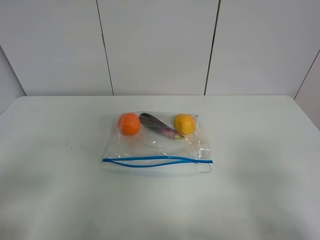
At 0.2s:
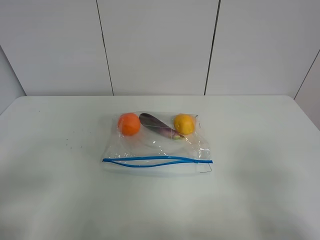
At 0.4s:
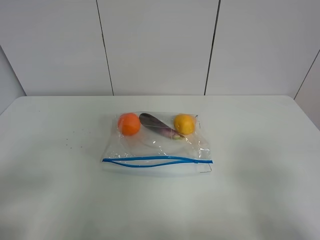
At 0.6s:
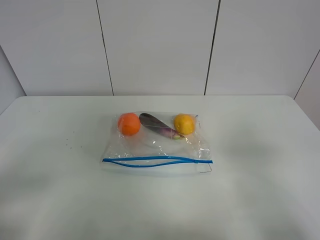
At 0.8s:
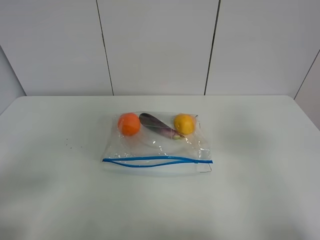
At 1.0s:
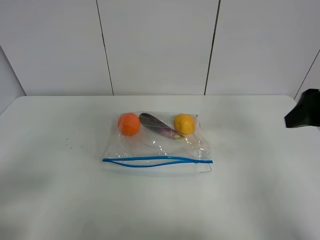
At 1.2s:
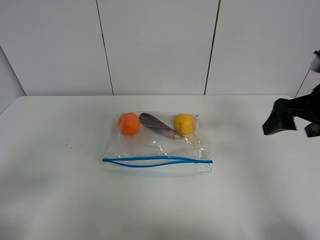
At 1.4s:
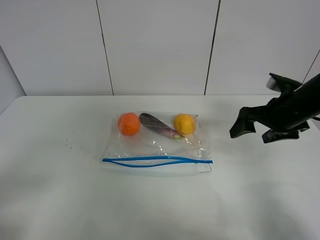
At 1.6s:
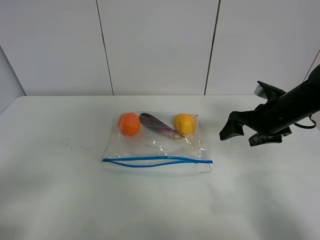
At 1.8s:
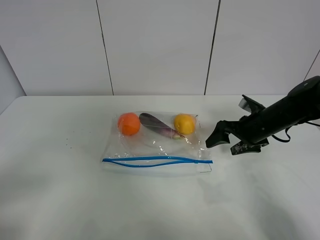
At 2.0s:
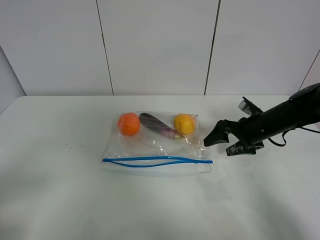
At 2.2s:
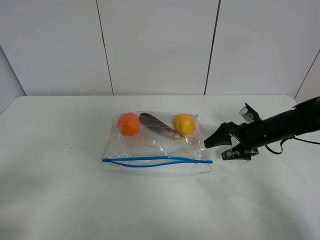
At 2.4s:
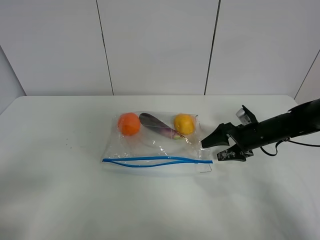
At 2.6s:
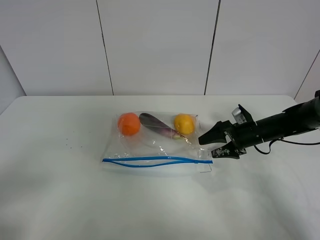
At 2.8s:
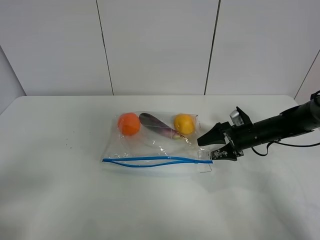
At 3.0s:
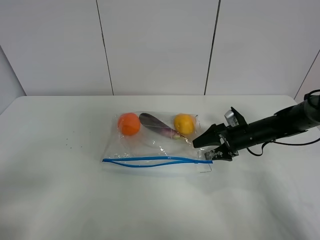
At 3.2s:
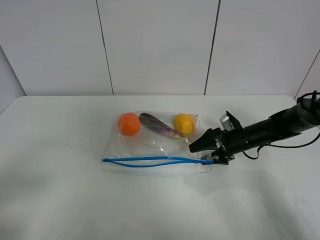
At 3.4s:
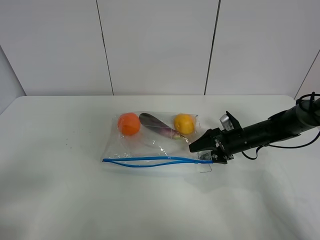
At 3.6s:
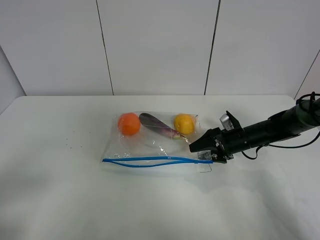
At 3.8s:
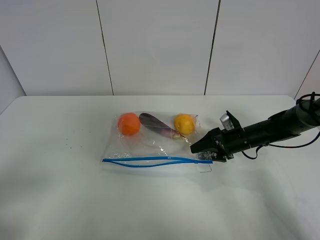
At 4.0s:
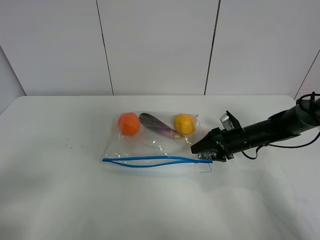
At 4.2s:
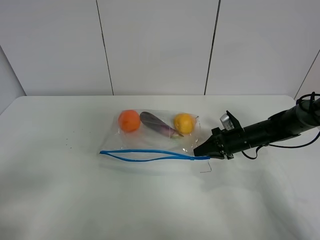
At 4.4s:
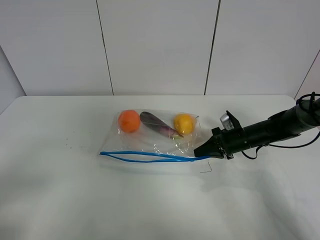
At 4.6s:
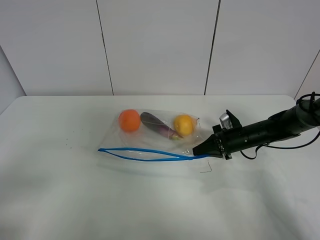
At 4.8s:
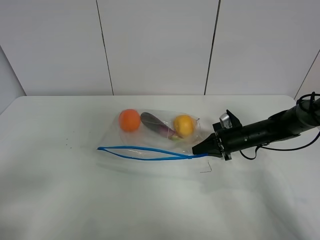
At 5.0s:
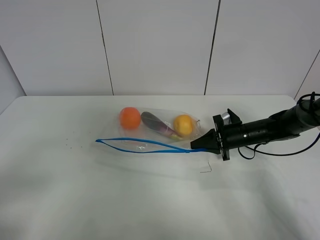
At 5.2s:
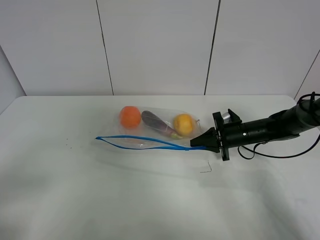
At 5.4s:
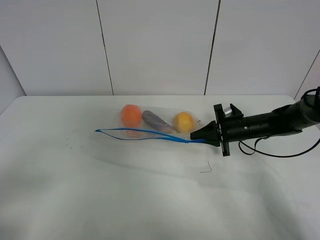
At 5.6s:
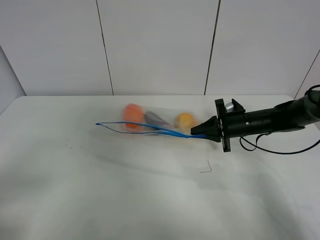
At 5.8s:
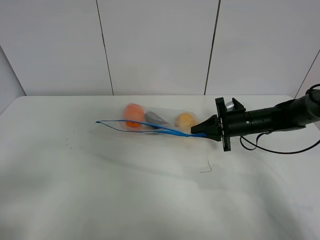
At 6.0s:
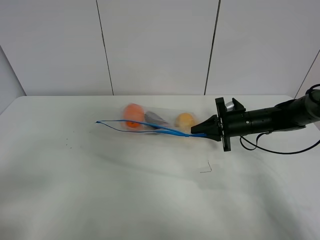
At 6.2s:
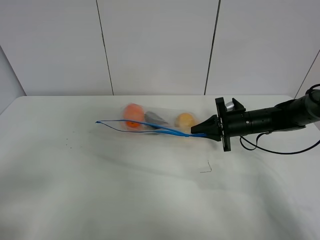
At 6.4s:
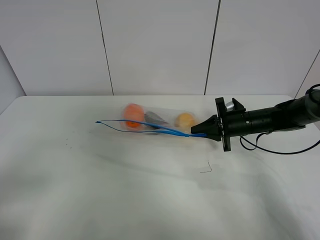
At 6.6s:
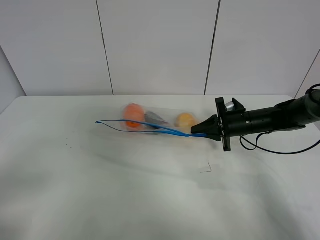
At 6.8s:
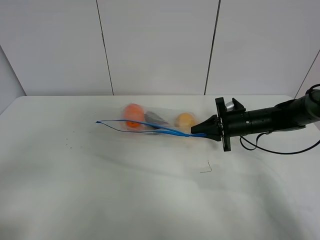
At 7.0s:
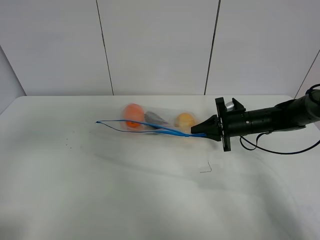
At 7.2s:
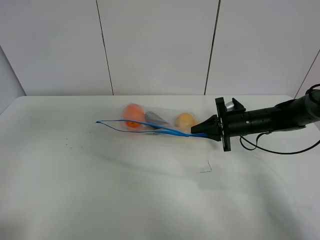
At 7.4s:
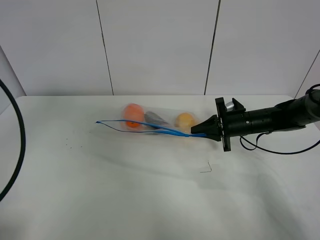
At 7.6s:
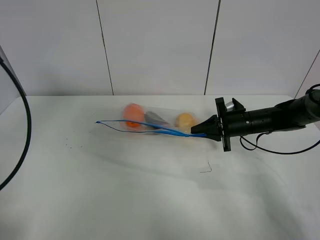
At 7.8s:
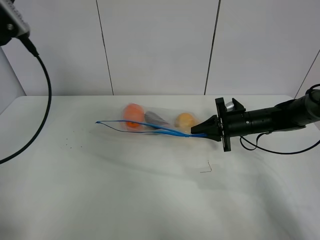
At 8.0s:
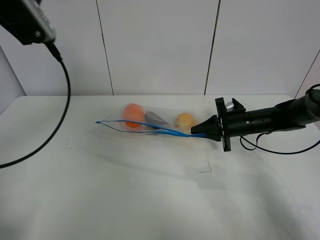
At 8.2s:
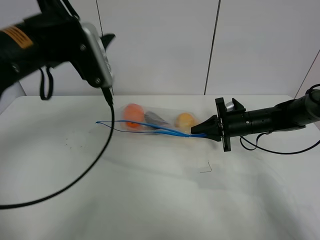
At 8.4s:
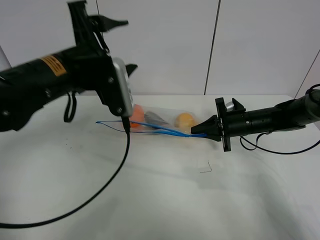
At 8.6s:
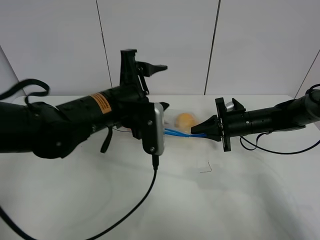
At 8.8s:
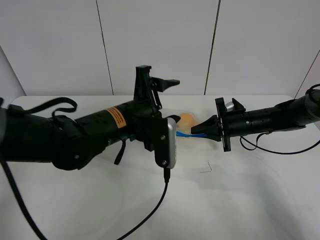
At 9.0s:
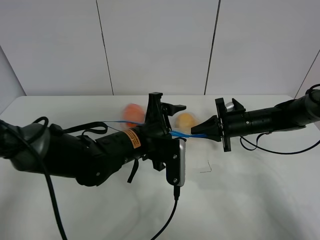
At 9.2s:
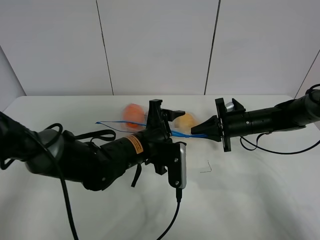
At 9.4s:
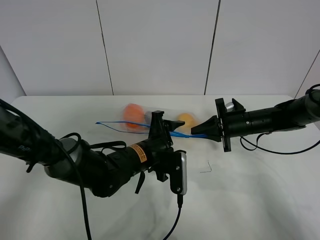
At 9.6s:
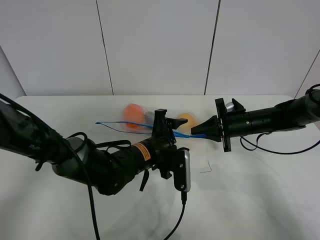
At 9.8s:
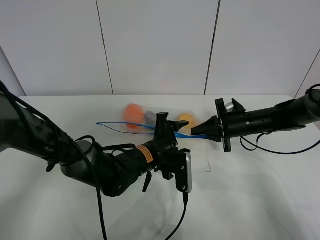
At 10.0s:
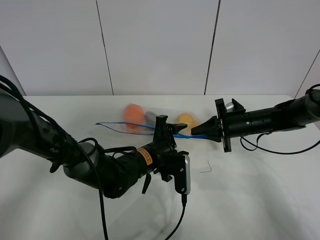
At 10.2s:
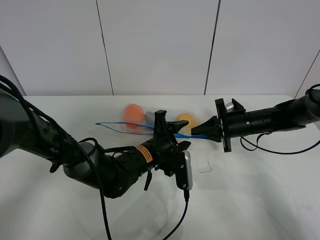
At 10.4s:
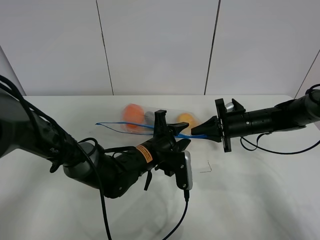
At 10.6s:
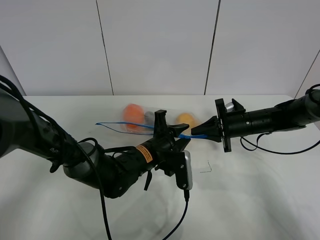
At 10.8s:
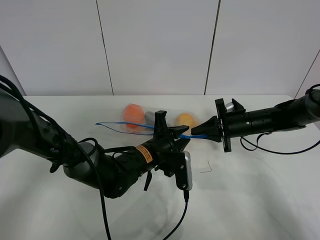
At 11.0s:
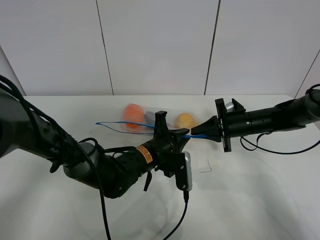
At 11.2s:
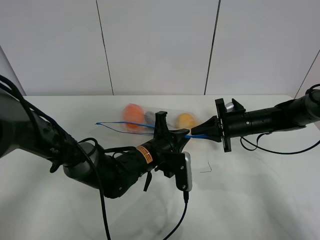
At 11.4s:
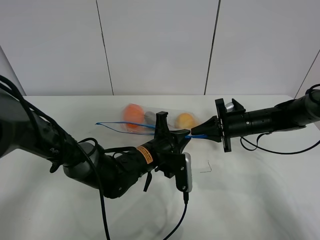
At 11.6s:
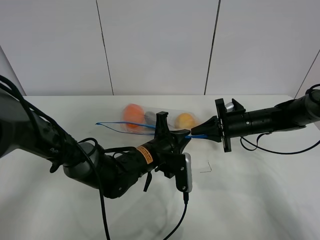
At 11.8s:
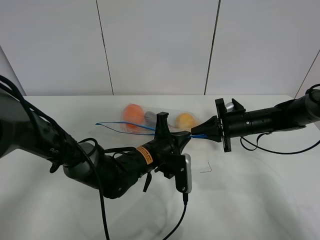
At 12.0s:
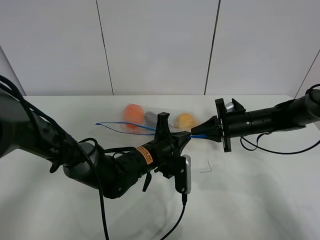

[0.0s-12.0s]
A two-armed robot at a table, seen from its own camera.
Step, 0.0s to 4.4s: Grasp the fruit bag with right gripper.
Step, 4.6s to 6.4s: Lift the fruit bag with your right gripper.
0.0s to 1.6s: The right gripper moves forward, roughly 30 cm.
1.6s to 3.0s: The right gripper heads downward, covering approximately 10 cm.
3.0s to 4.4s: The right gripper closes.
6.0s to 7.6s: The left gripper travels forward and upward by about 25 cm.
7.6s to 9.0s: The left gripper shifts approximately 35 cm to the right and downward.
9.0s to 10.4s: The left gripper shifts about 5 cm downward, and closes.
10.4s to 12.0s: The left gripper closes.

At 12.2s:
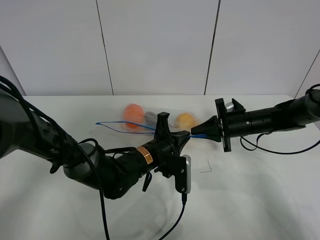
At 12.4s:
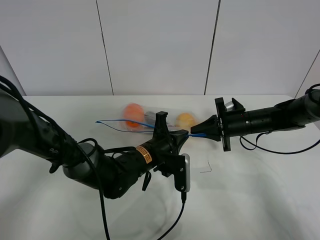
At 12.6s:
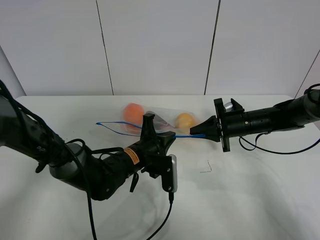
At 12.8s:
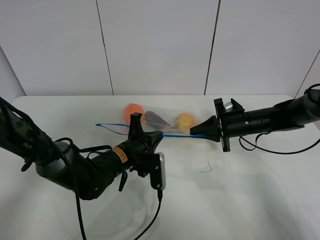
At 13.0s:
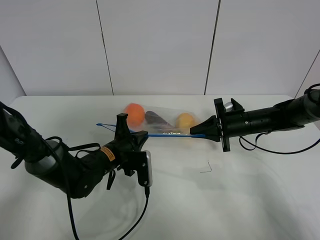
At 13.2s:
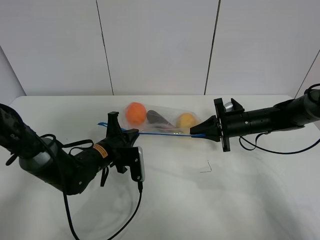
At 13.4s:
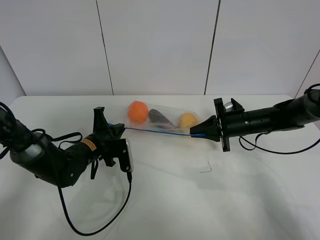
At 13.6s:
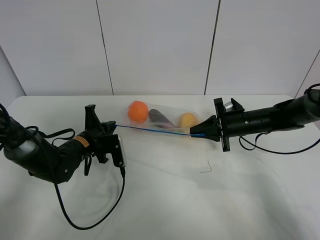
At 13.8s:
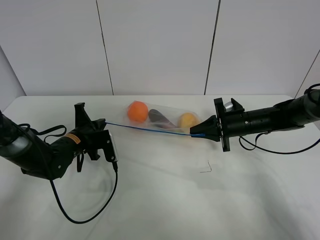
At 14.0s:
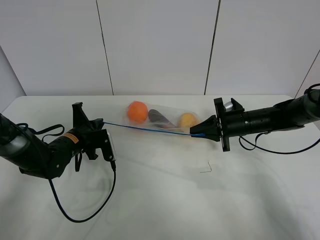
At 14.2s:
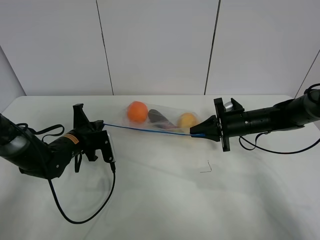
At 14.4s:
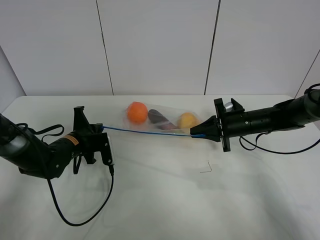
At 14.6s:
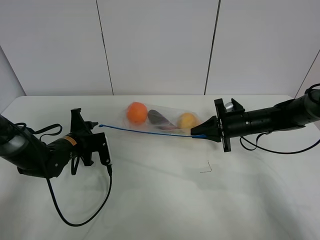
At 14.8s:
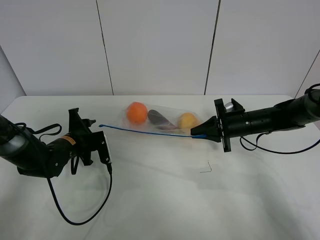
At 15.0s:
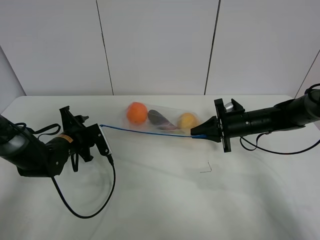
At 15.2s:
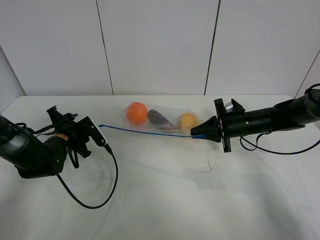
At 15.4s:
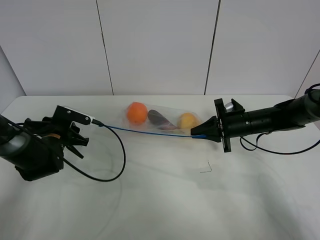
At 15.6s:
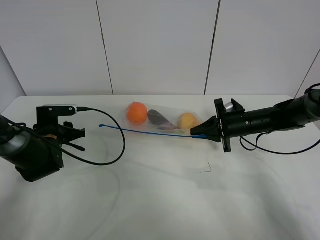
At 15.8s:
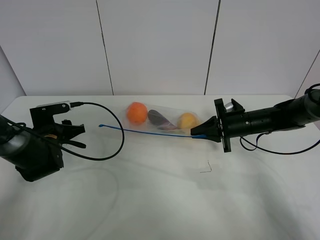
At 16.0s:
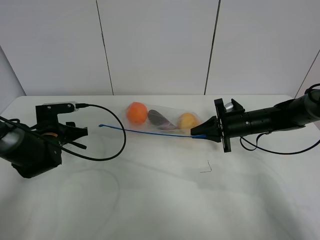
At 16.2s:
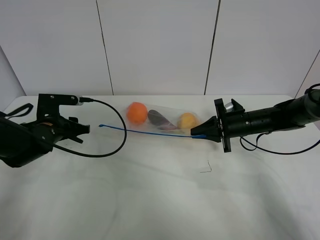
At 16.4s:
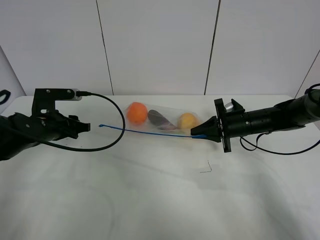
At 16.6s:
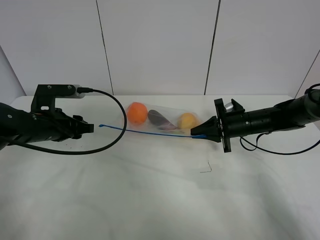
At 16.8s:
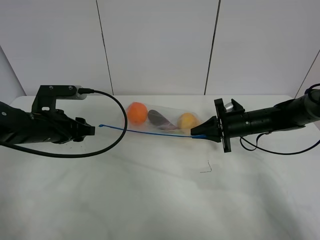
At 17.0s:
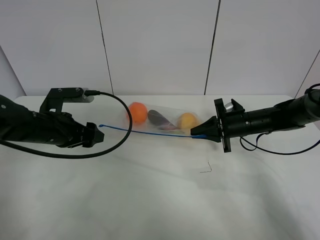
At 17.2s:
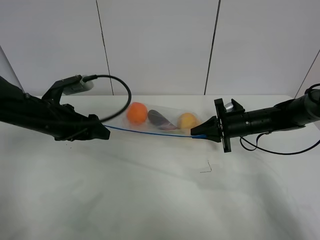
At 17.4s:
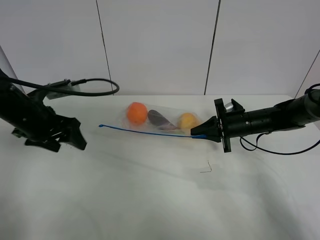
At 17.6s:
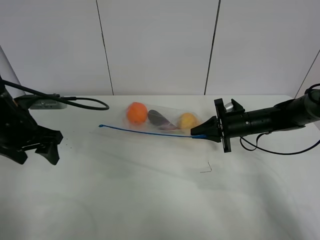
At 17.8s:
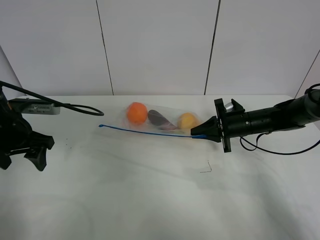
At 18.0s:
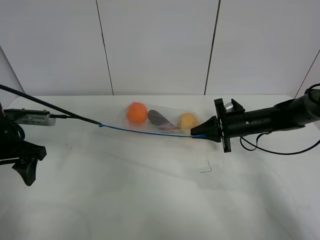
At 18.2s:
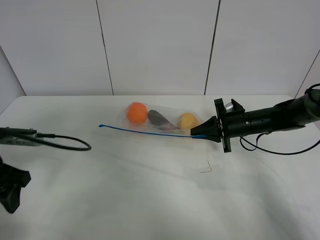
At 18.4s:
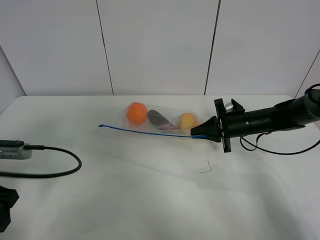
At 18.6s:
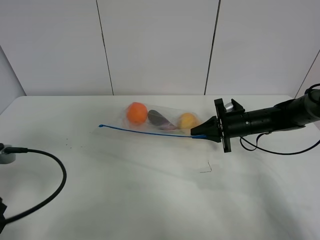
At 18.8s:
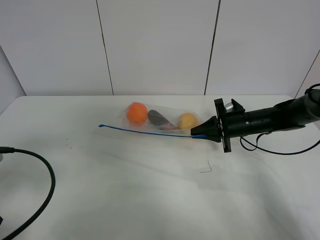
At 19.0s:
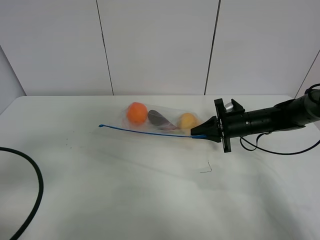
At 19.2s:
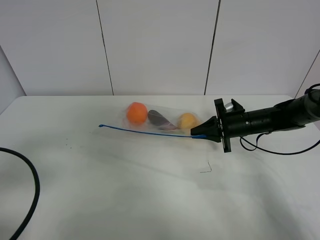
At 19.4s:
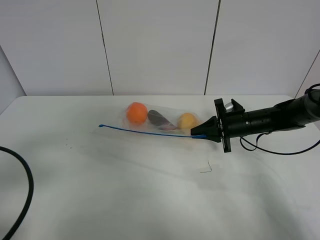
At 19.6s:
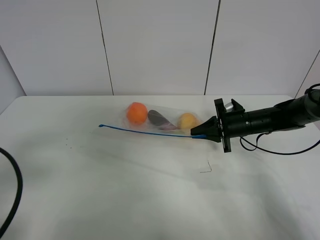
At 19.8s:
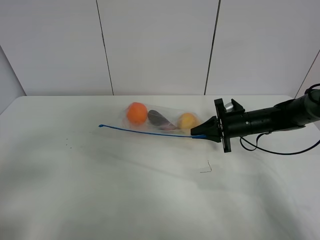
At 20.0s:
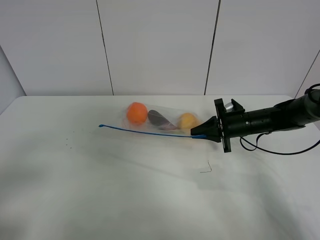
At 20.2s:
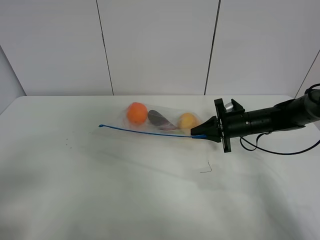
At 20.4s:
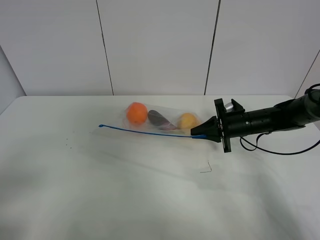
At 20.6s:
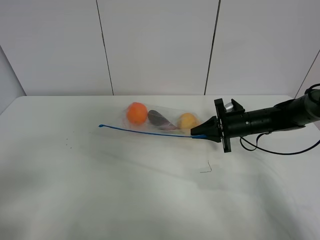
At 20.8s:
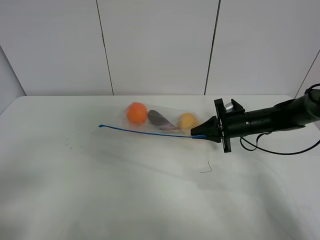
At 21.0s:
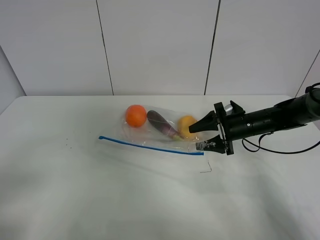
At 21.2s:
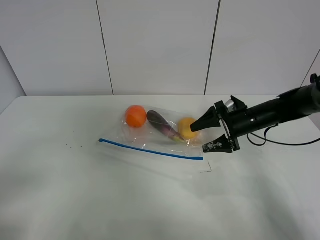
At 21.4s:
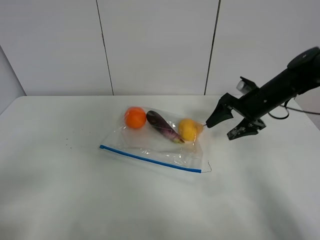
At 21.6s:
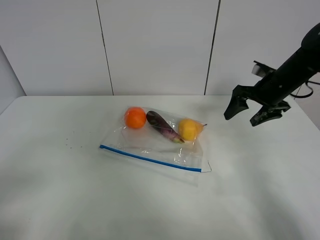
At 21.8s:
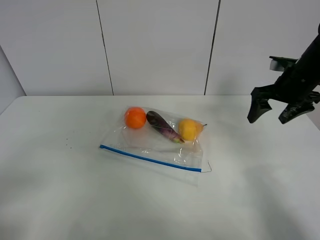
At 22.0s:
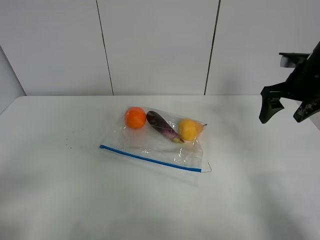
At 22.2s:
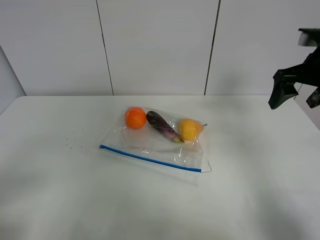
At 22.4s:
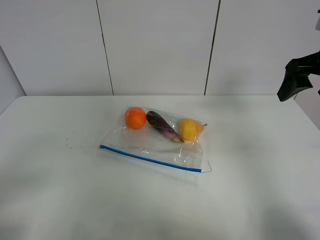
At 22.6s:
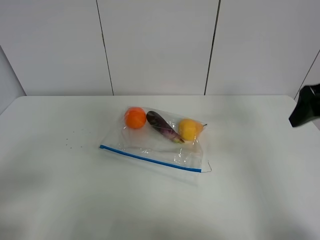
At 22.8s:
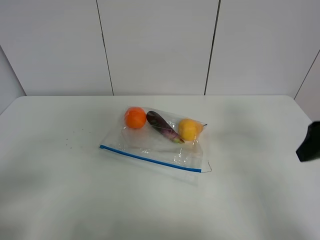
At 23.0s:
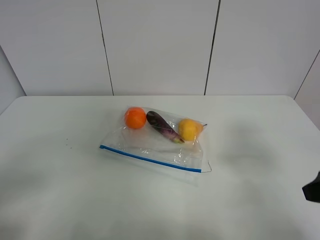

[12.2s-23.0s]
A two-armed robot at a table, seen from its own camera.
Step, 12.2s to 14.8s: Pull the fruit bag with left gripper.
12.2s to 13.8s: The left gripper heads to the left, covering roughly 20 cm.
13.8s to 15.2s: The left gripper opens.
15.2s to 16.8s: The left gripper goes some 10 cm upward and backward.
16.8s to 18.4s: The left gripper travels backward and to the left by approximately 15 cm.
18.4s to 20.0s: The left gripper goes about 15 cm backward.
20.0s to 21.4s: The right gripper is displaced upward by some 10 cm, and opens its fingers.
21.4s to 23.0s: The right gripper goes some 25 cm backward.
